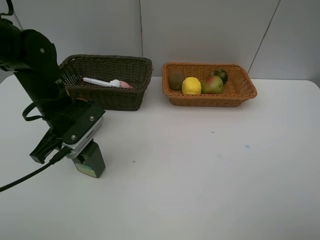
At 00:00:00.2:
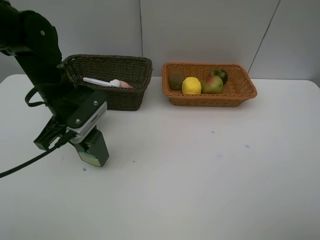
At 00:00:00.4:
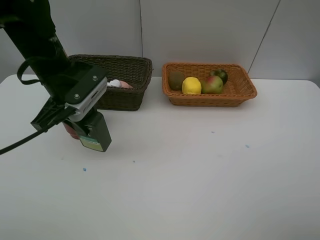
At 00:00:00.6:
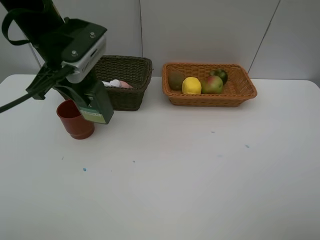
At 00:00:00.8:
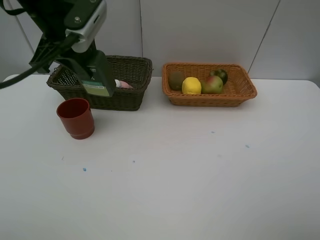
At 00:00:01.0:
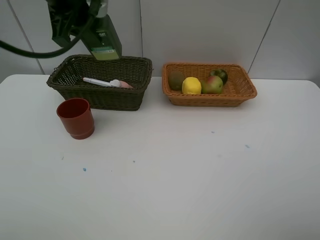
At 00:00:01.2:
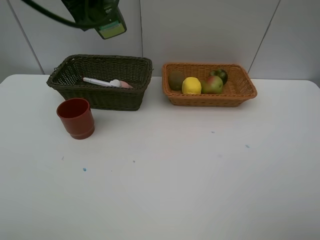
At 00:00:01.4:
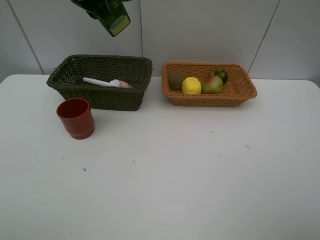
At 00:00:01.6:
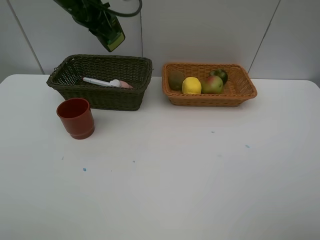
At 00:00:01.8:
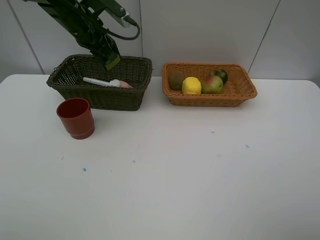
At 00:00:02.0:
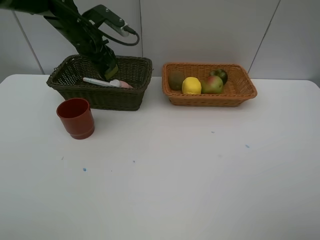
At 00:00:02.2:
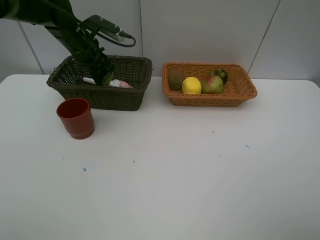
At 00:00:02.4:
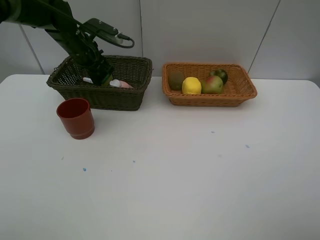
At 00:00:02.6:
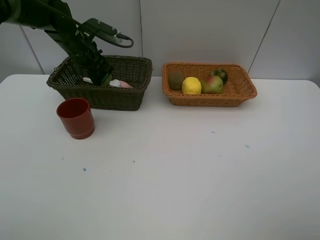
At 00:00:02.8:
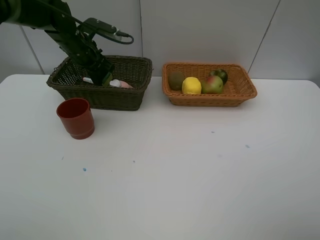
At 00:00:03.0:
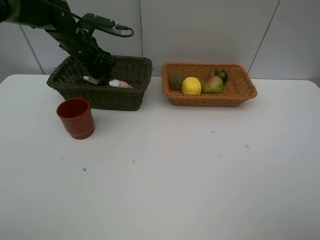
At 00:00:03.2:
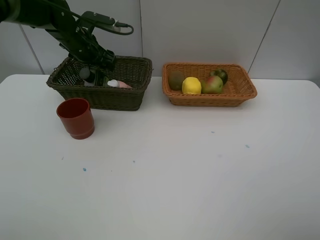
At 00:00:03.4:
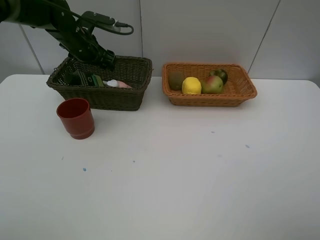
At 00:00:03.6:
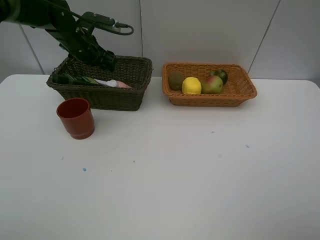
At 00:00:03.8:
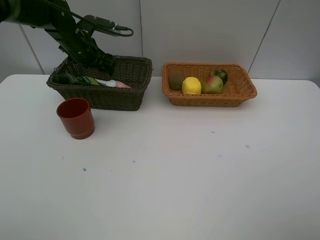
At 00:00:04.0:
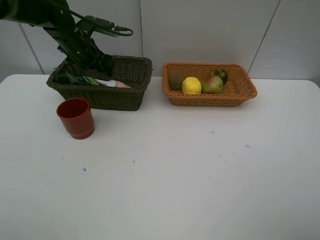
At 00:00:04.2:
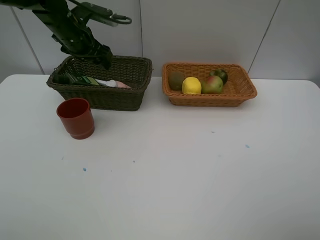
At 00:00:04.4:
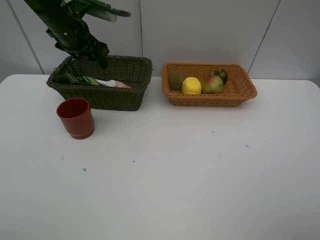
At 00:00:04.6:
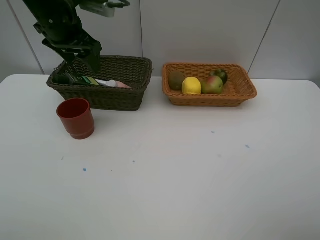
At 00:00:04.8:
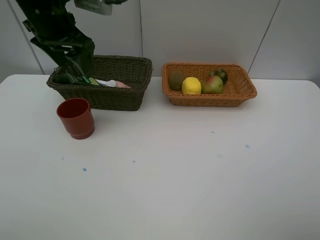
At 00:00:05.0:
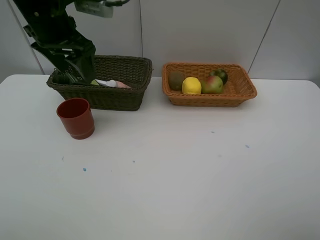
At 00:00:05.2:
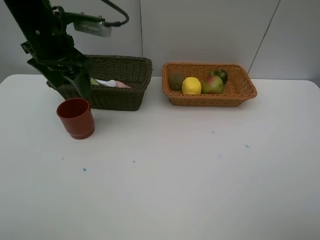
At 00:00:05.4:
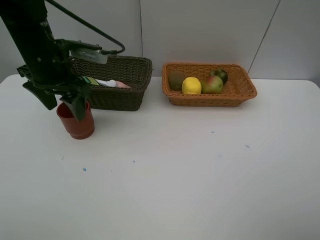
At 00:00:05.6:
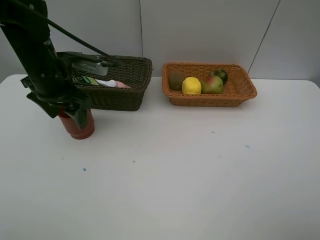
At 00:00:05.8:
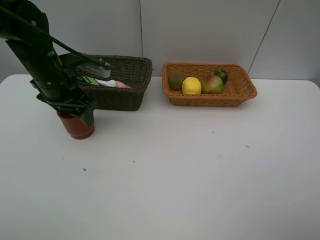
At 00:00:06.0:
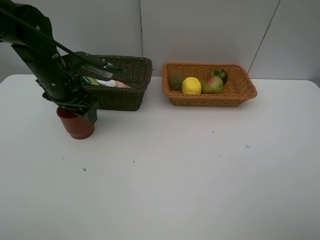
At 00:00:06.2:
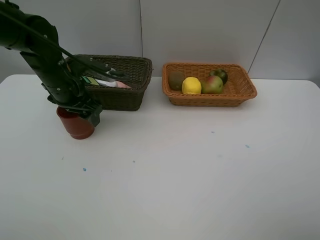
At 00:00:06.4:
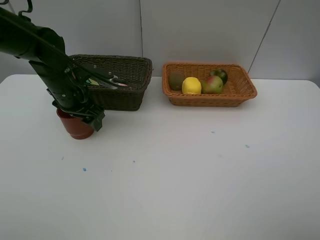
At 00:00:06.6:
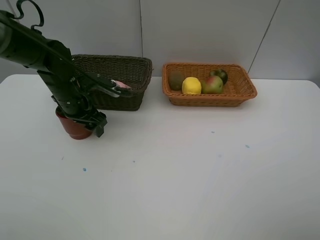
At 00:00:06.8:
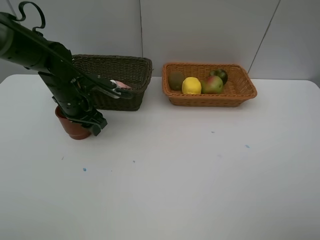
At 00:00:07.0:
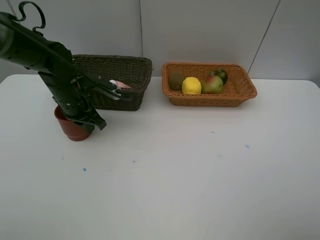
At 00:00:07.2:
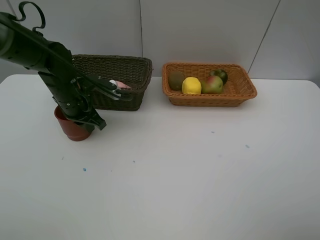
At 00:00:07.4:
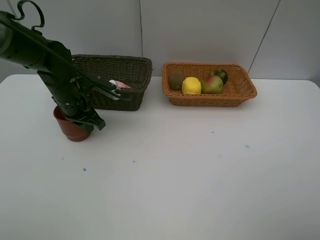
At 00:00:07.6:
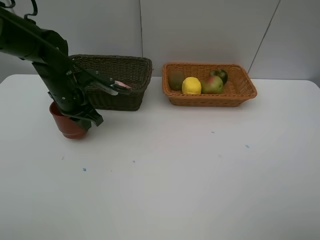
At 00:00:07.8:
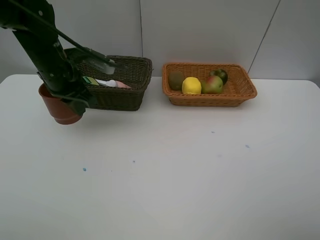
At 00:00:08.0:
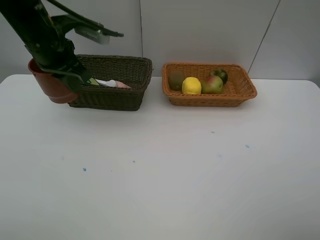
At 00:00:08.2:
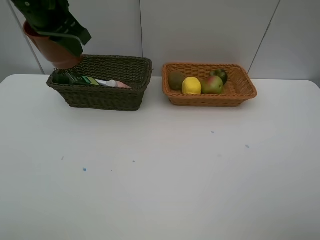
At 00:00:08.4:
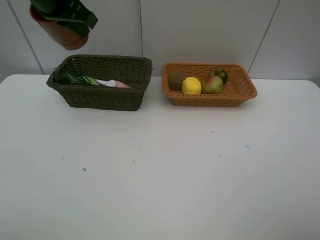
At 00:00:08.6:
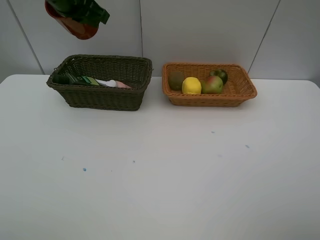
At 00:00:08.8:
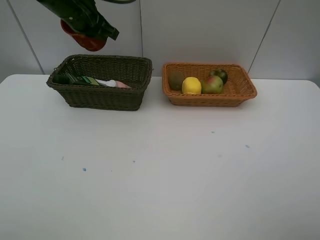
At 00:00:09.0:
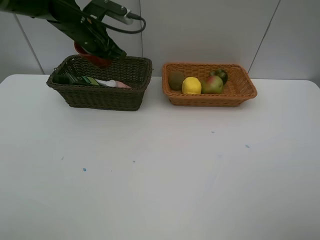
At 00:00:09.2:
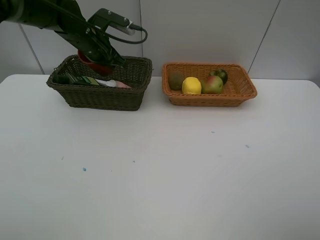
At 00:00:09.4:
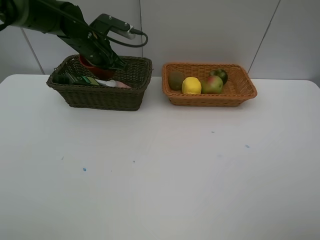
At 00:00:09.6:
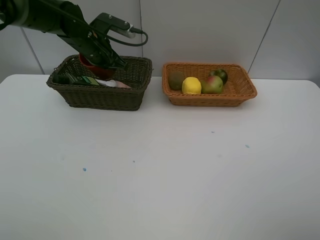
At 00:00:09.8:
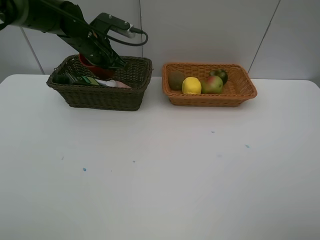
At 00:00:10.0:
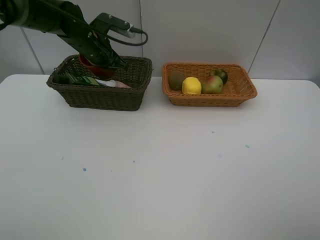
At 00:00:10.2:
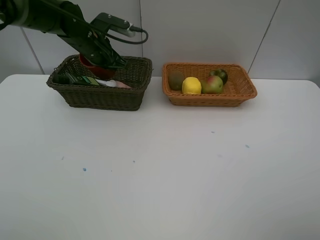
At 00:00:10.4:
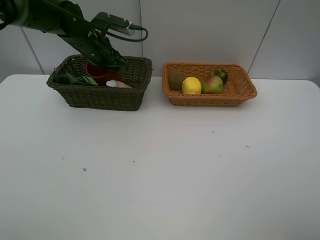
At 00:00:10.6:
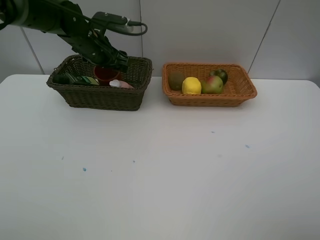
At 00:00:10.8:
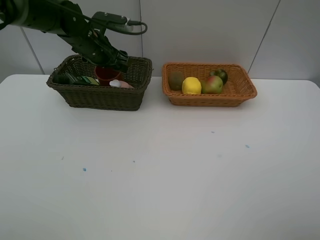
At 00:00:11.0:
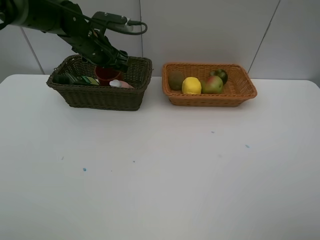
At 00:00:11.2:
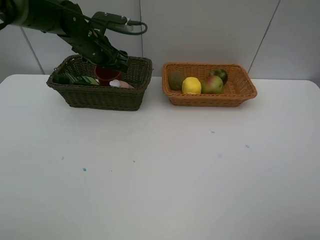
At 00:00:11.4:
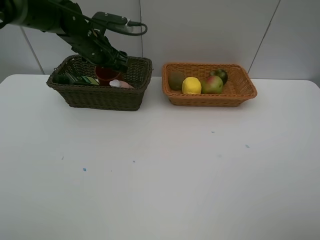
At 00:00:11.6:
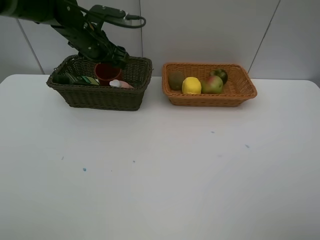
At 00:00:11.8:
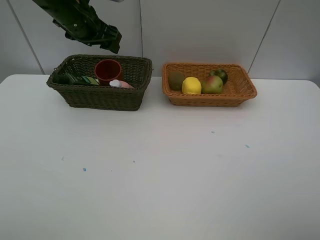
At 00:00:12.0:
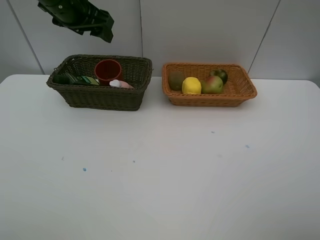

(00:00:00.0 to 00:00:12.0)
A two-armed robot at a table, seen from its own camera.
Task of the whole recording: Place multiple objects separately in different baskets.
Step, 00:00:00.4 - 00:00:03.8: Place the hard facial cleanser in the dark basket with left gripper.
Step, 00:00:04.0 - 00:00:07.6: Pick up the dark brown cup with left gripper.
Step, 00:00:07.8 - 00:00:11.6: Place the dark brown cup in the dark basket with left gripper.
00:00:00.0 - 00:00:01.6: The left gripper heads forward and upward, covering roughly 20 cm.
00:00:01.6 - 00:00:03.0: The left gripper shifts roughly 10 cm downward, and opens.
00:00:03.0 - 00:00:04.4: The left gripper shifts about 5 cm upward.
00:00:04.4 - 00:00:06.0: The left gripper moves backward and downward, about 10 cm.
00:00:06.0 - 00:00:07.6: The left gripper closes up.
00:00:07.6 - 00:00:09.0: The left gripper shifts roughly 10 cm forward and upward.
00:00:09.0 - 00:00:10.4: The left gripper opens its fingers.
00:00:10.4 - 00:00:12.0: The left gripper shifts approximately 15 cm upward and backward, and opens.

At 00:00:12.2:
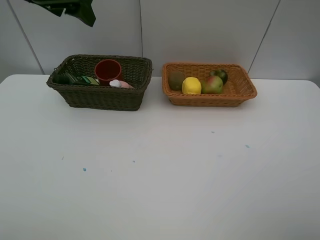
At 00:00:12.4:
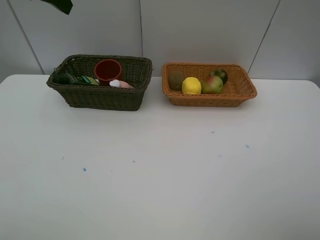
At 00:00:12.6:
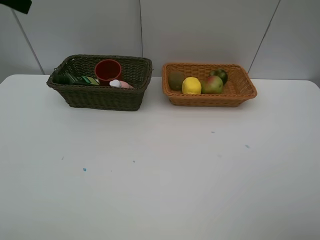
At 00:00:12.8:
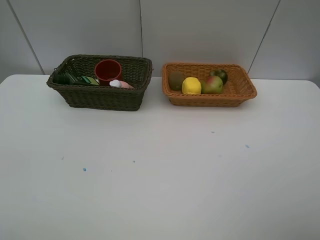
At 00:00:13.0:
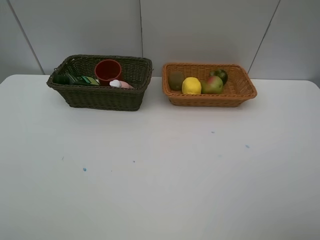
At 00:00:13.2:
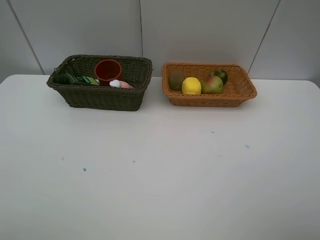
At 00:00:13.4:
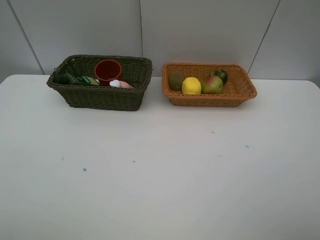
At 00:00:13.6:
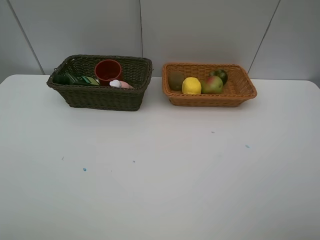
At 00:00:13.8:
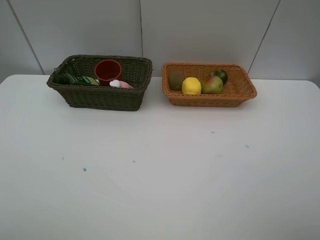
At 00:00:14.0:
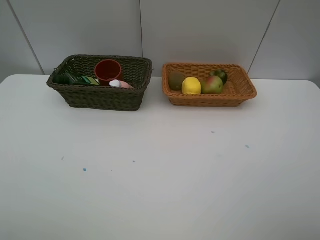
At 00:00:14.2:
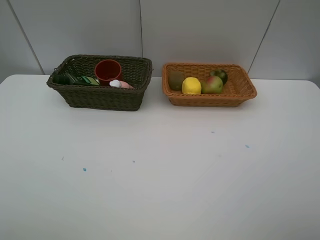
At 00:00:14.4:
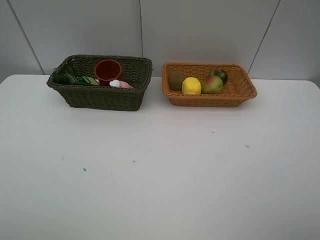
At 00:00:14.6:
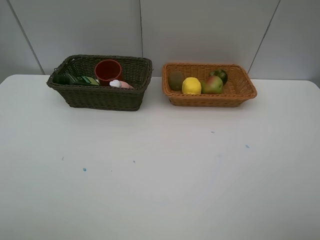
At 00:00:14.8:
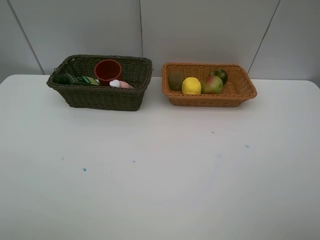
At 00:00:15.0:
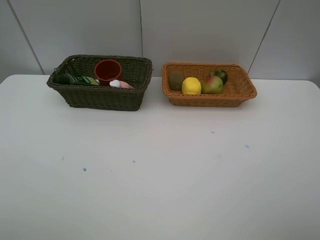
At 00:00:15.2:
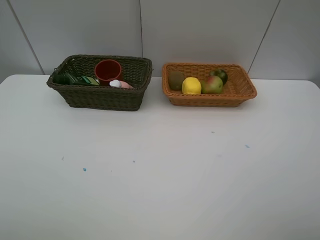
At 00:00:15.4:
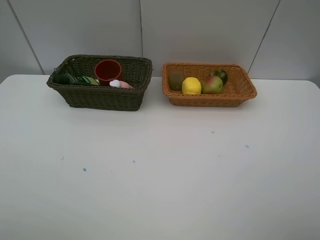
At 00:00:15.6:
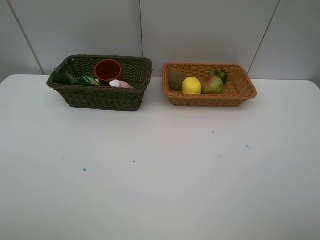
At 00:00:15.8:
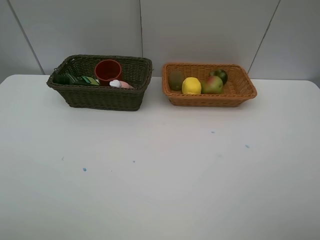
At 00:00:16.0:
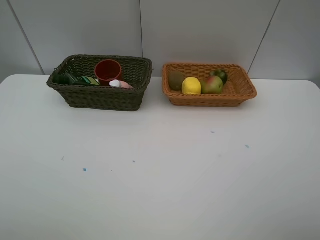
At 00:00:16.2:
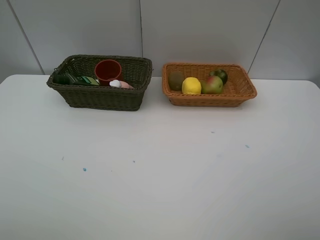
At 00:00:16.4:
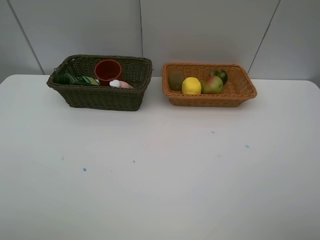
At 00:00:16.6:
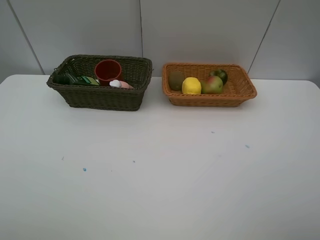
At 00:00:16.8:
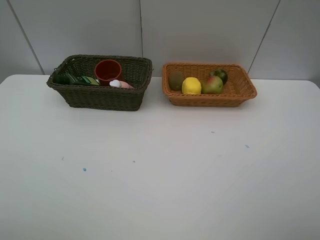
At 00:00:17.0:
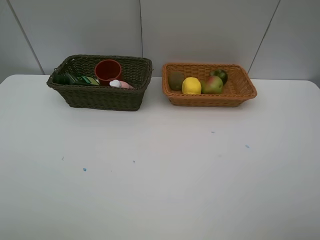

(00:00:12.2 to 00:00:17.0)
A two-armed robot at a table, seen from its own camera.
Task of the whole recording: Place multiple objects separately in different baskets.
00:00:12.2 - 00:00:13.8: The left gripper travels backward by about 35 cm.
00:00:15.4 - 00:00:17.0: Neither gripper changes place.
